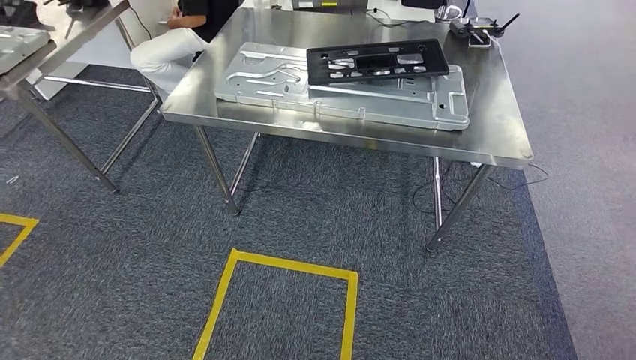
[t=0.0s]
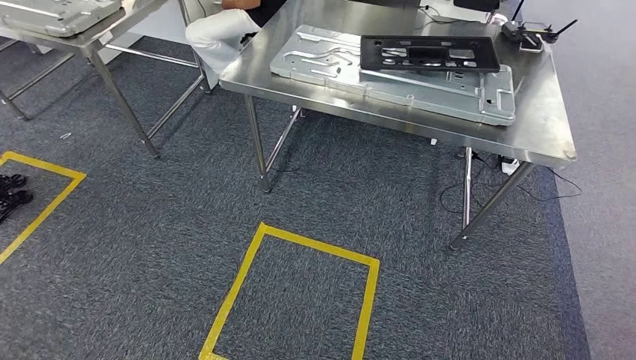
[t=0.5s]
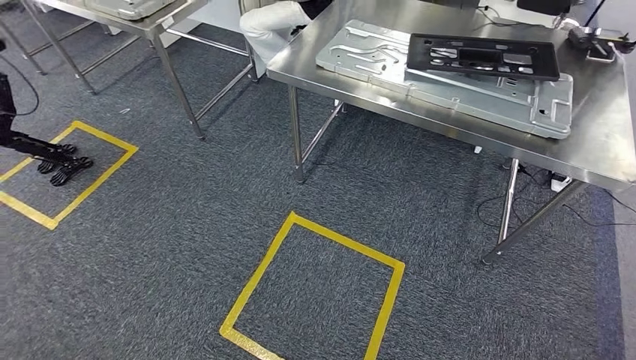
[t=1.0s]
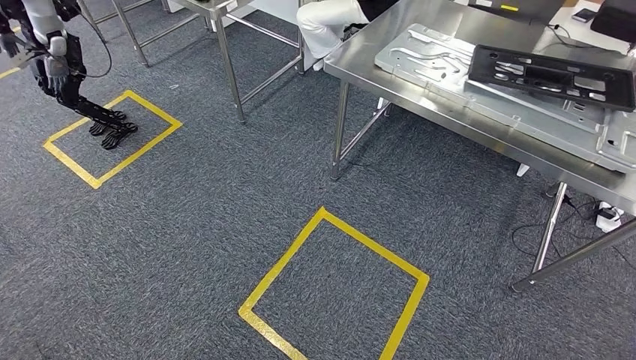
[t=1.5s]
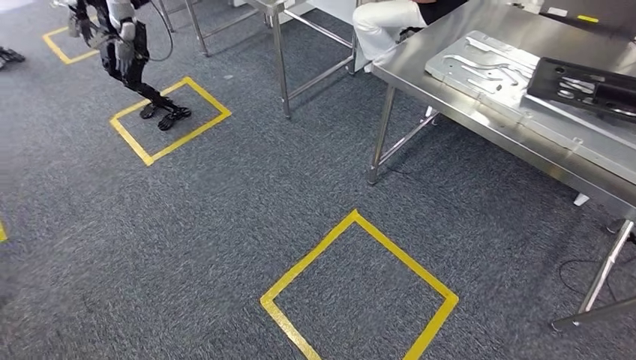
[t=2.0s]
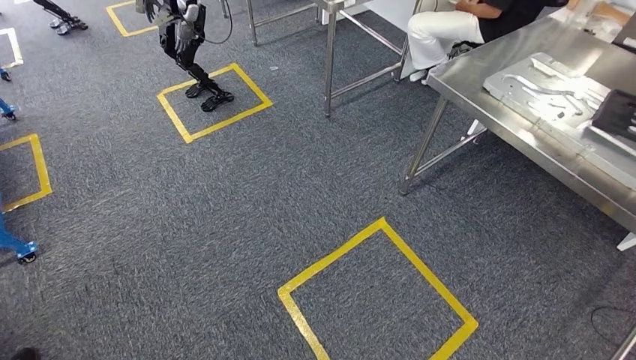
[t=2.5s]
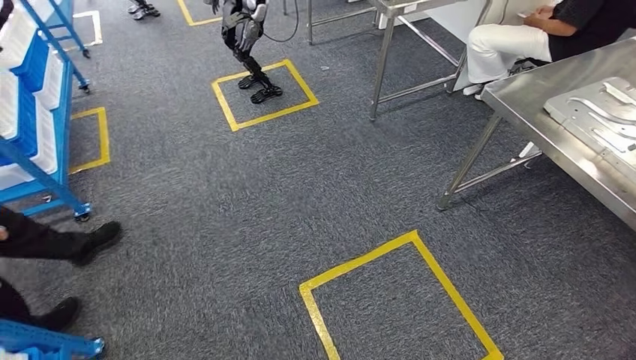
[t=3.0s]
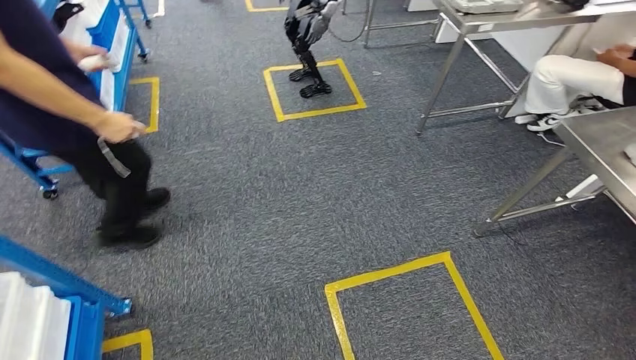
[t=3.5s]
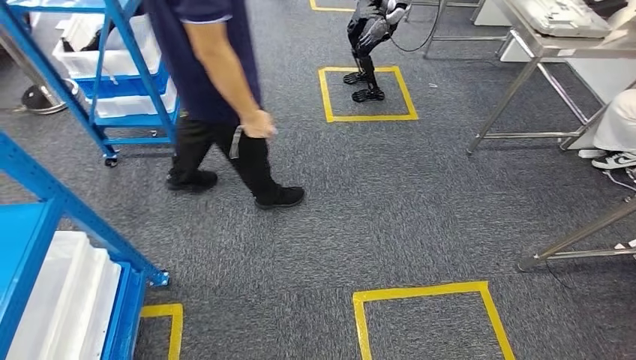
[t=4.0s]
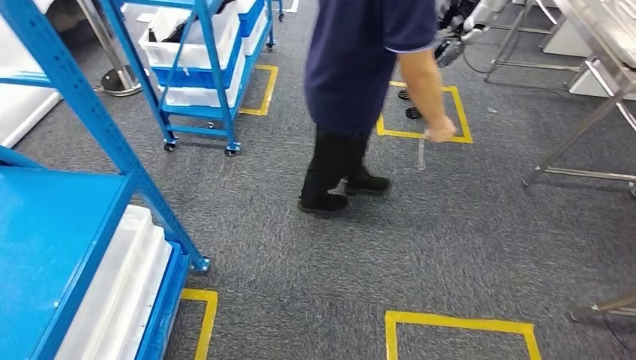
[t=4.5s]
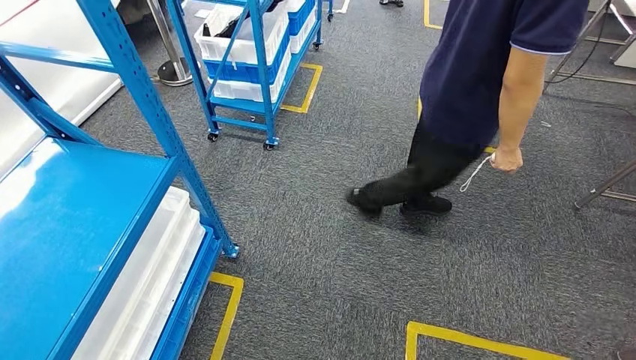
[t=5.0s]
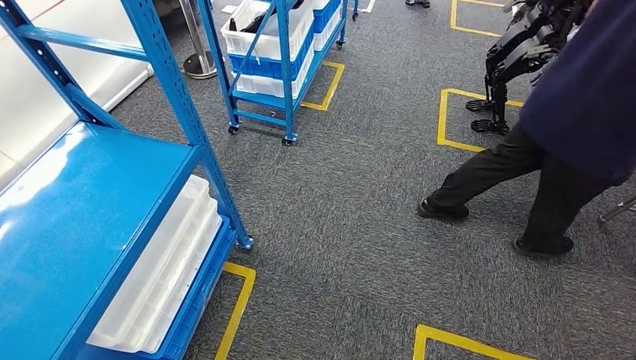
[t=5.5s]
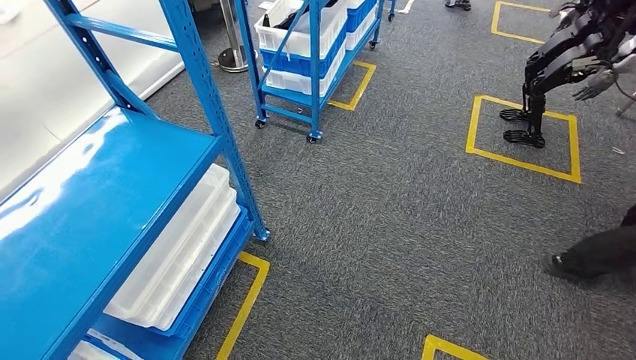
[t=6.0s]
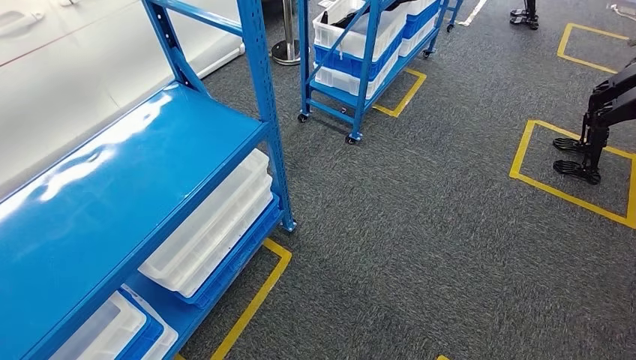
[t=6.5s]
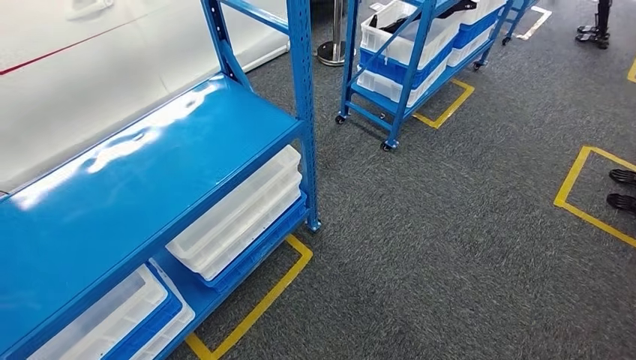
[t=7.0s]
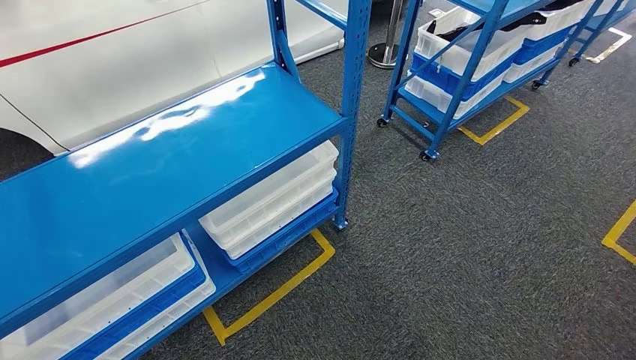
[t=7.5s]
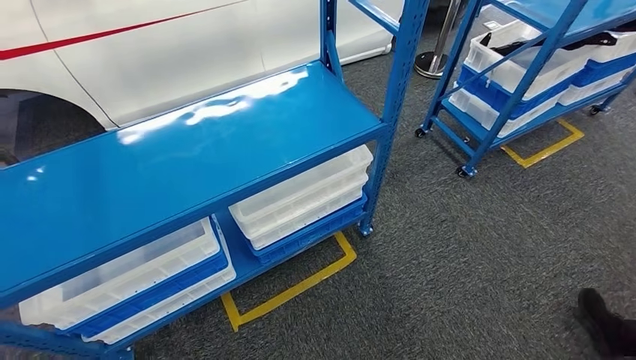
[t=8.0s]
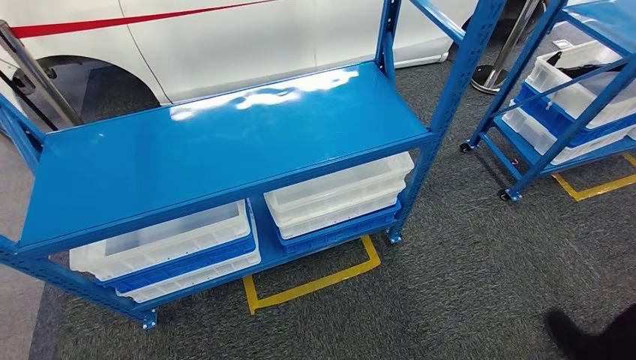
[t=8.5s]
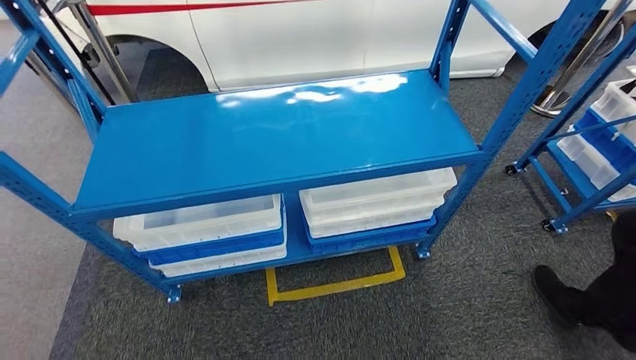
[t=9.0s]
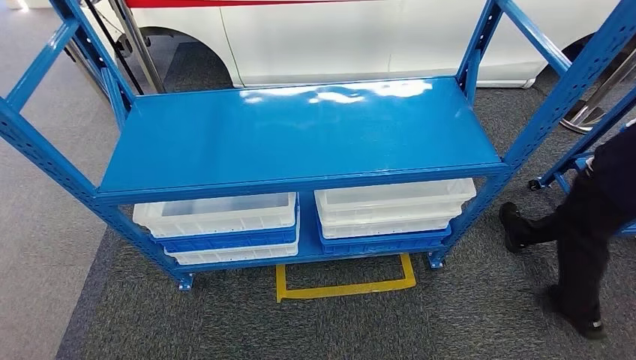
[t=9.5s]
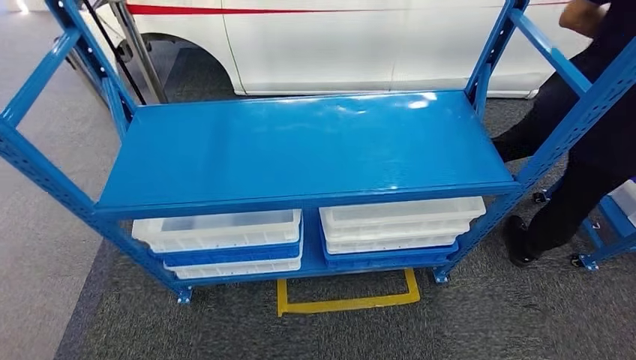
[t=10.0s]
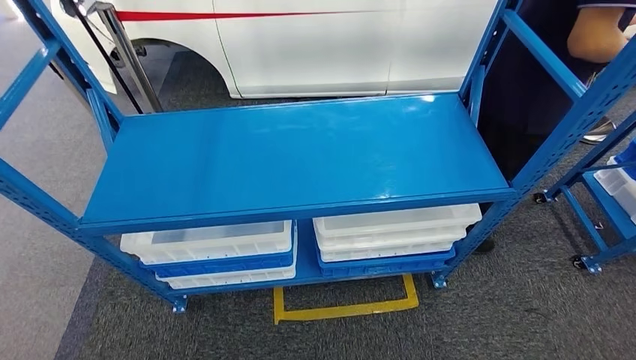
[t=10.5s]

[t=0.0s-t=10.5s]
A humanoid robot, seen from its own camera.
Step, t=0.0s to t=10.5s: Return to the initial position at the shelf.
